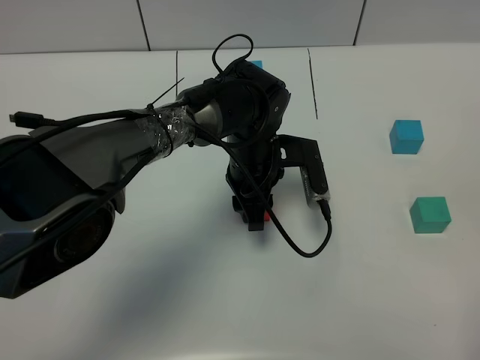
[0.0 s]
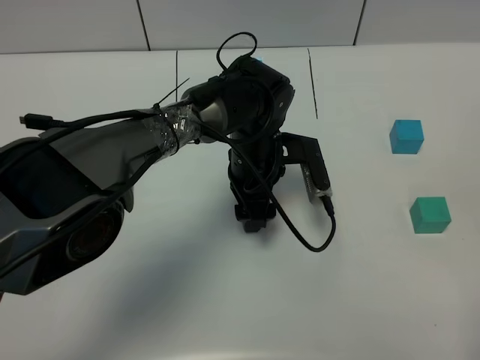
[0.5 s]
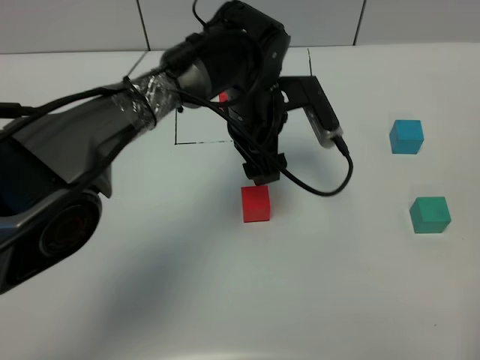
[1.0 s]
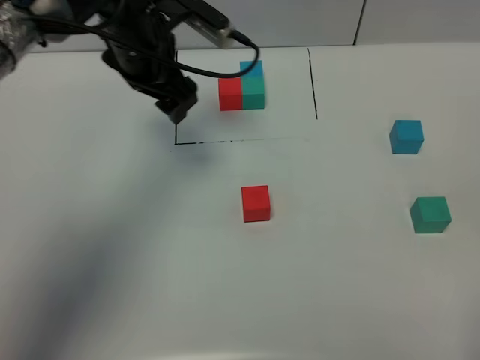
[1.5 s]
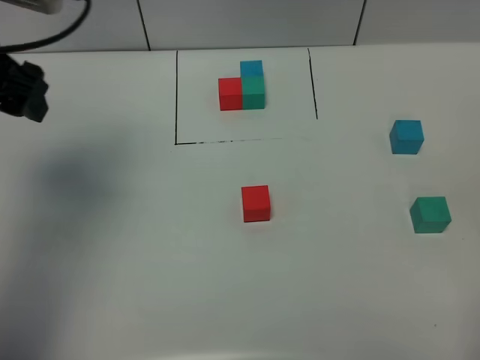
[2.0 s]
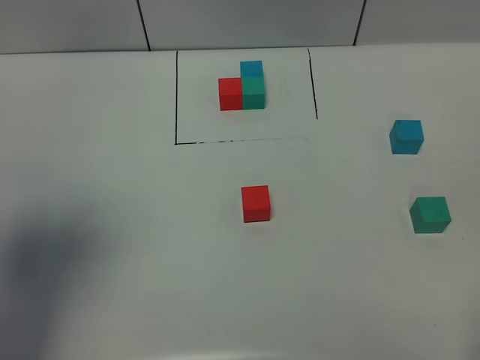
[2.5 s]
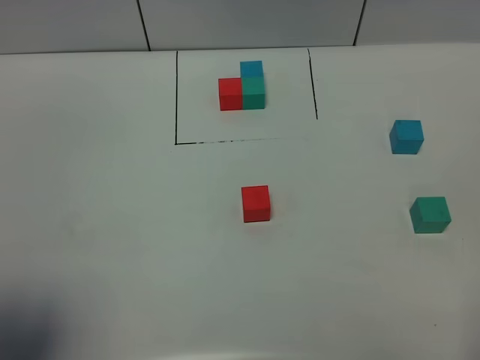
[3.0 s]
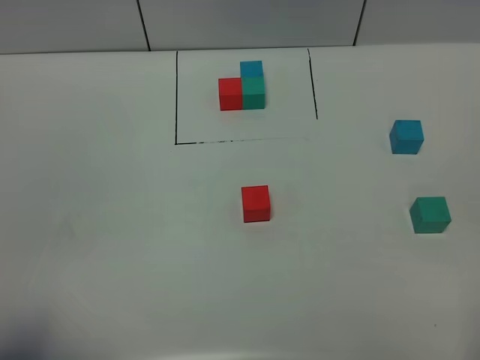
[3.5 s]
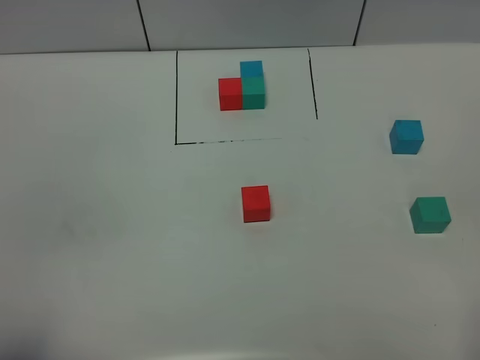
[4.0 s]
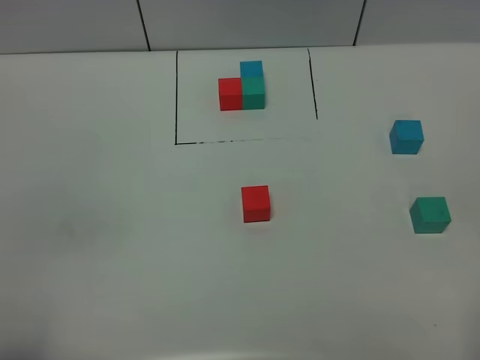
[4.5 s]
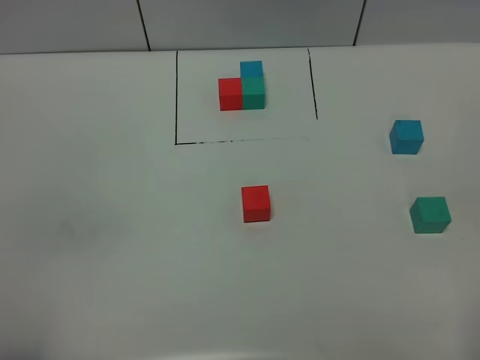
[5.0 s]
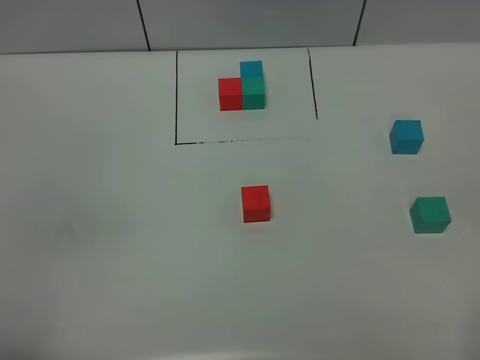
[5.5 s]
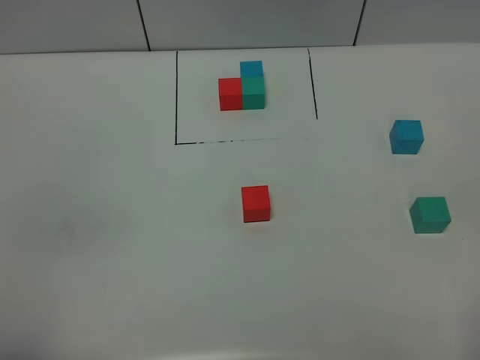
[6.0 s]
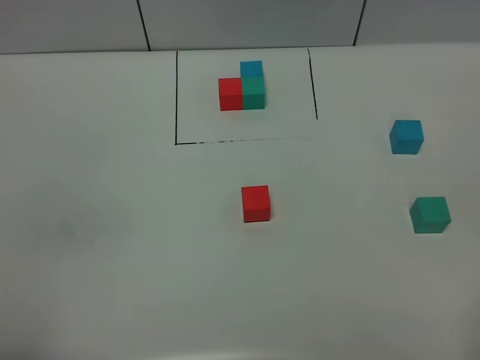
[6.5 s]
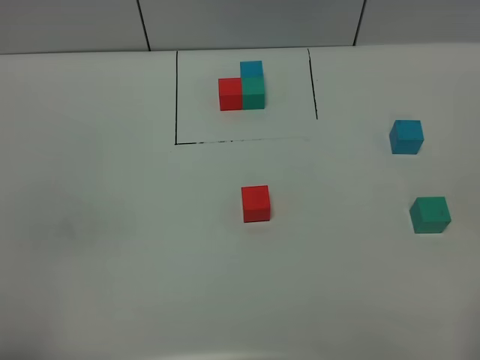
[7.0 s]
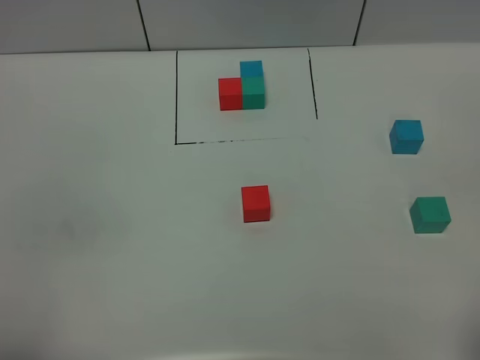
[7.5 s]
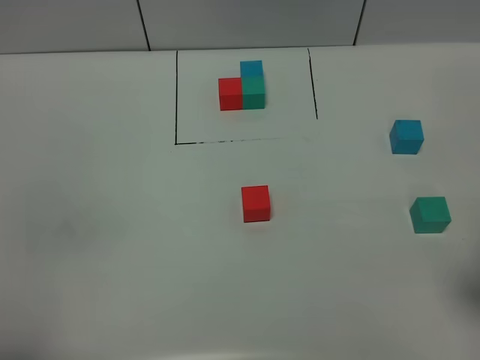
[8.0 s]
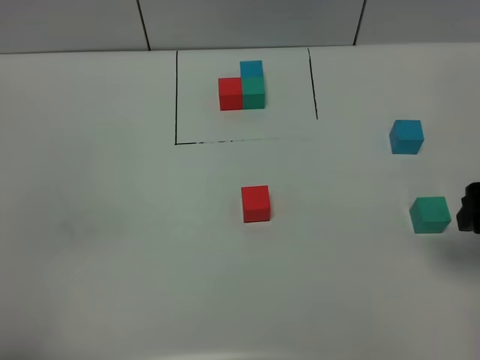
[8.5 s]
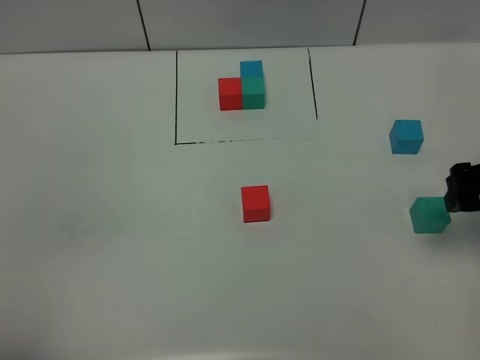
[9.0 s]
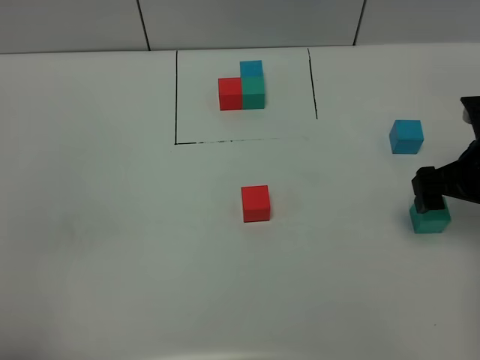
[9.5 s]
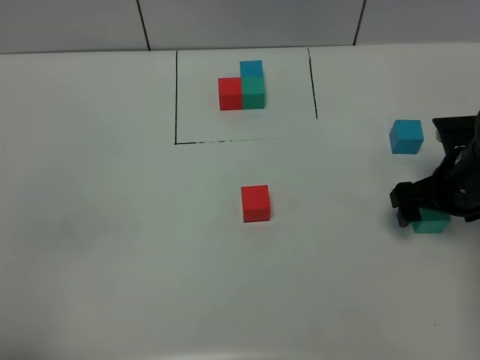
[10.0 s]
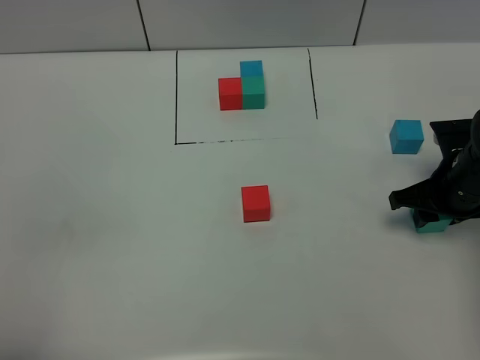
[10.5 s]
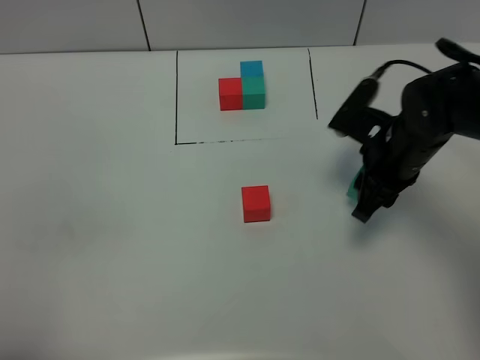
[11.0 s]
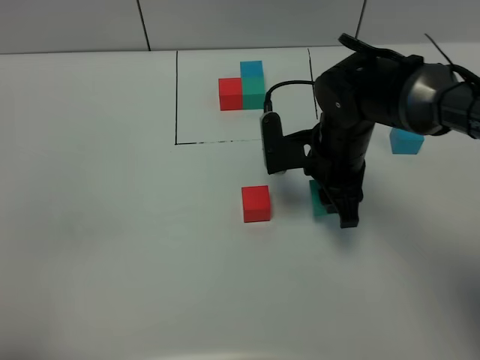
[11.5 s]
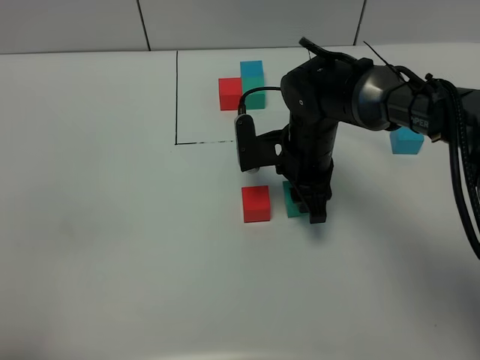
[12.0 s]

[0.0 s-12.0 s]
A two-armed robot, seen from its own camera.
Task of the whole recording: According to the building block template in front, assemble the scattered blocks together.
0.0 to 2.0 s: The left gripper heads to the left and upward, covering about 35 cm, and opens up.
2.0 to 4.0 s: The left gripper heads backward, covering approximately 30 cm.
8.0 to 10.0 s: The right gripper is displaced forward and downward by approximately 20 cm.
10.0 to 12.0 s: The right gripper shifts approximately 20 cm to the left, and closes.

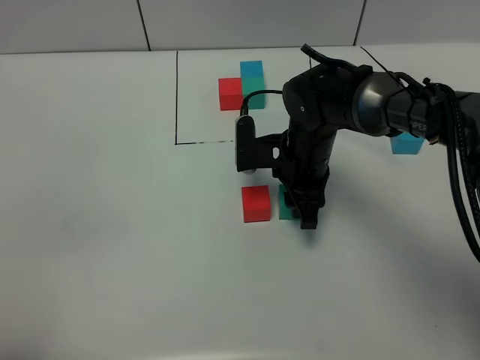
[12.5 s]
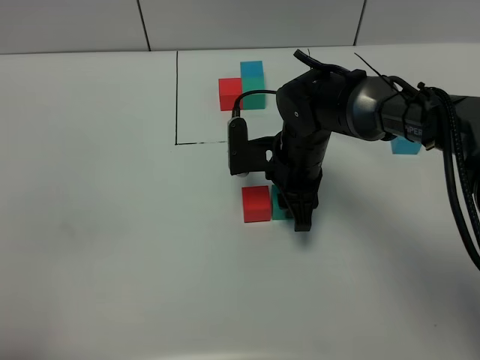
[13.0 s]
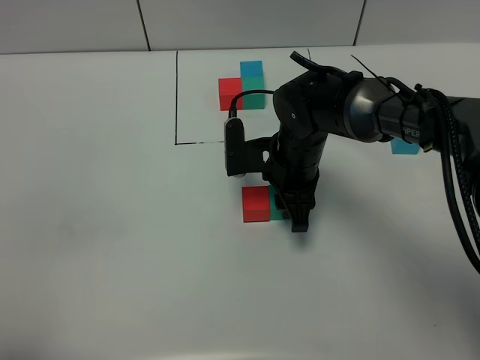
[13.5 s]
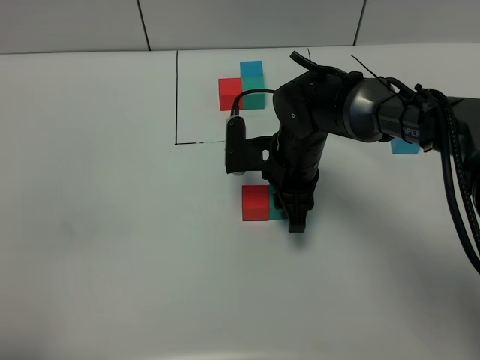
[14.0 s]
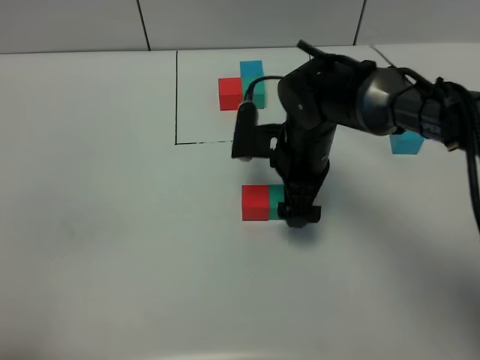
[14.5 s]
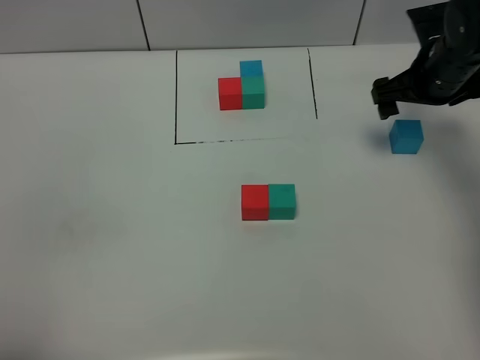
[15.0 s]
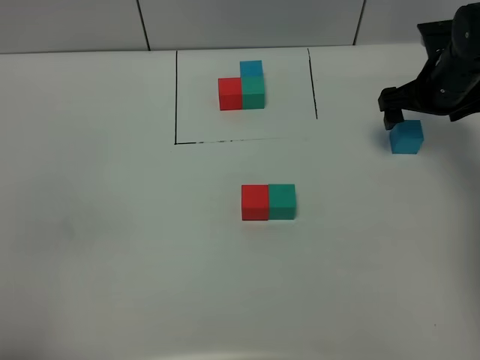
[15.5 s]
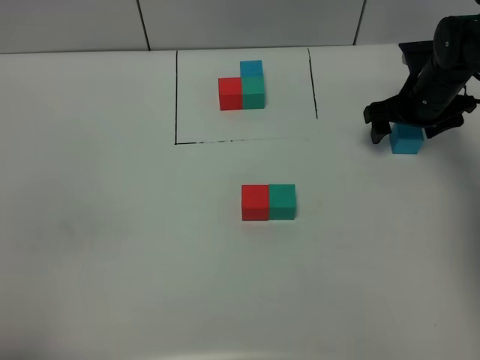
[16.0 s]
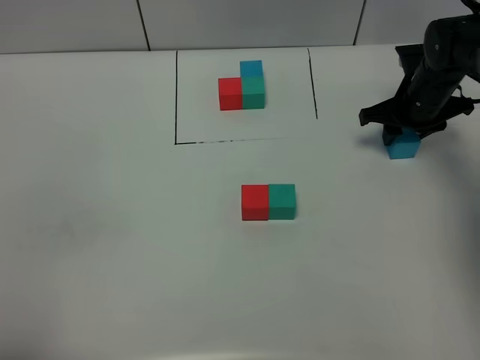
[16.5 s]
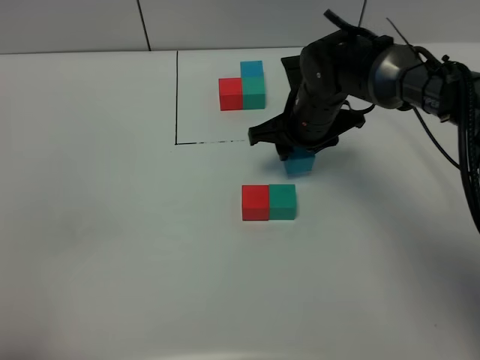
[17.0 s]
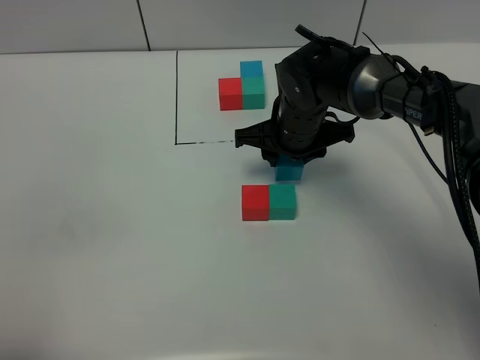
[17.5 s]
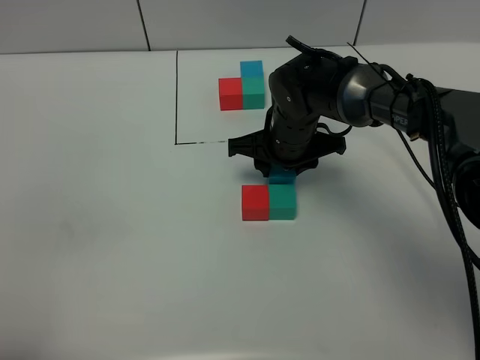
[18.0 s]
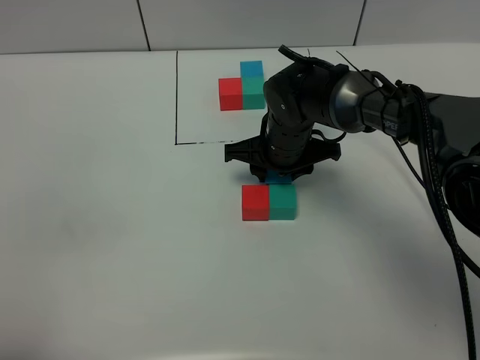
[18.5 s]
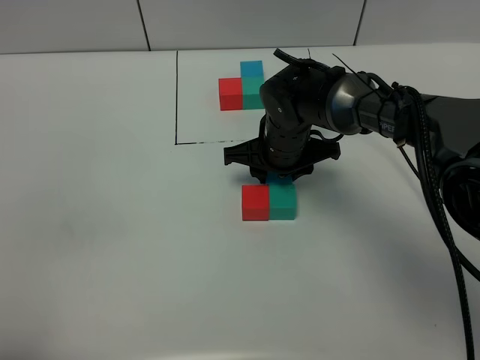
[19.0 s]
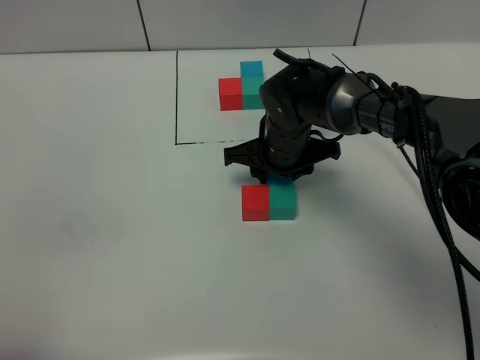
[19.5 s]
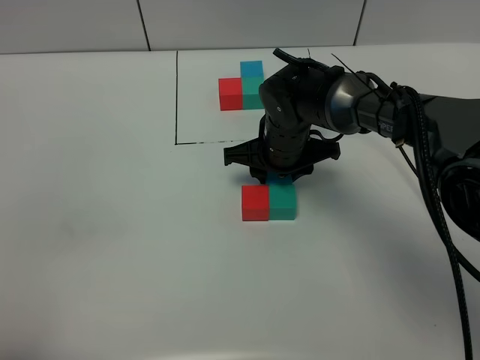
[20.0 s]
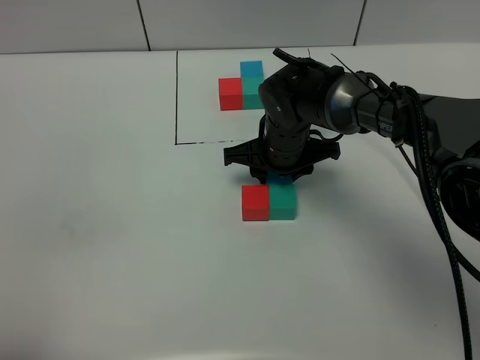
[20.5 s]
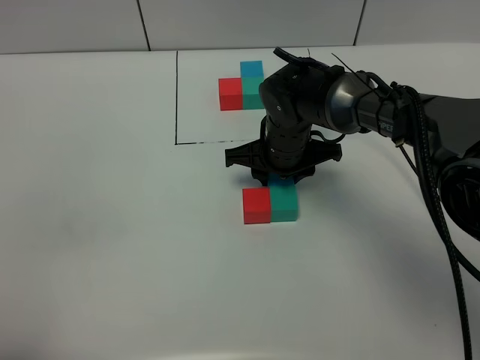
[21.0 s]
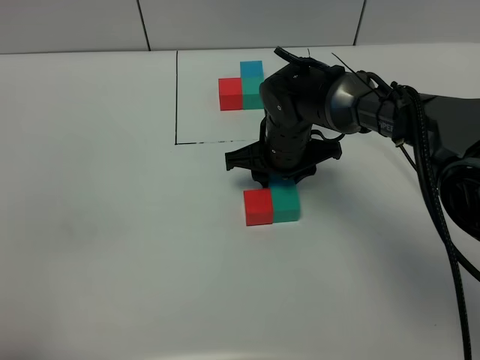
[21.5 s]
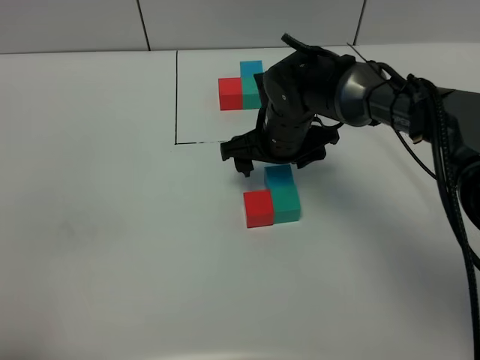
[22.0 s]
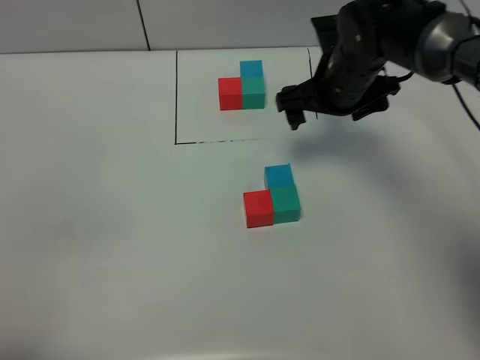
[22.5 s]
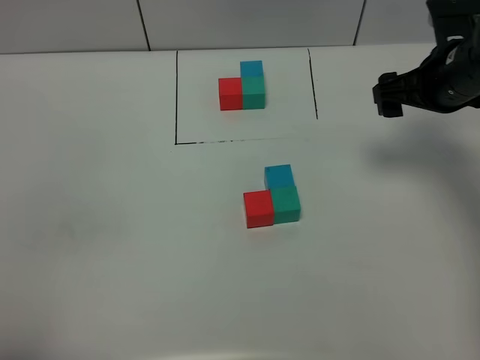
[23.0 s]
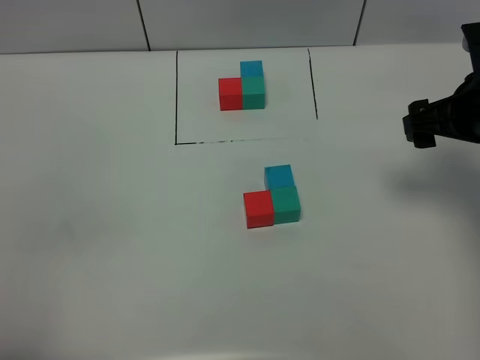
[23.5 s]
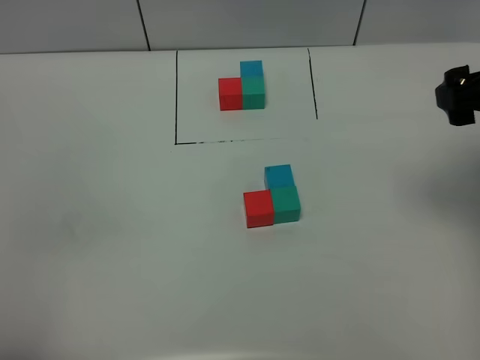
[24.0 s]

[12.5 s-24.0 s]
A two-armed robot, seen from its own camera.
Task of the whole recording: According to the building block template in front, assemble the scattered blocks together.
Step, 14.5 to 21.5 s: Put the blue build block on the front of the green build block.
12.5 to 14.5 s: The right gripper opens its fingers.
14.5 to 16.5 s: The right gripper is displaced to the right and forward by about 20 cm, and closes.
16.5 to 18.5 s: The right gripper shifts approximately 20 cm to the left.
18.5 to 20.0 s: Both grippers stay about where they are.
20.0 to 22.0 s: The right gripper opens up.
22.0 to 24.0 s: The right gripper moves to the right, upward and backward, about 30 cm, and opens.
